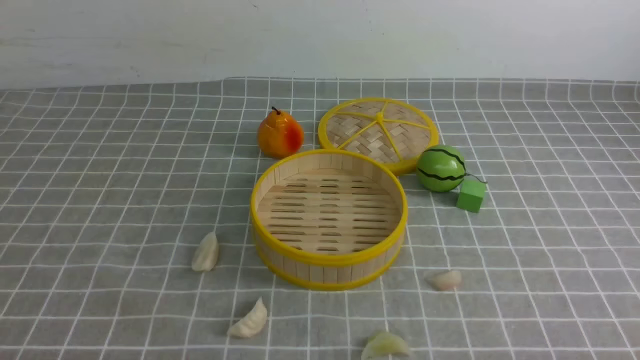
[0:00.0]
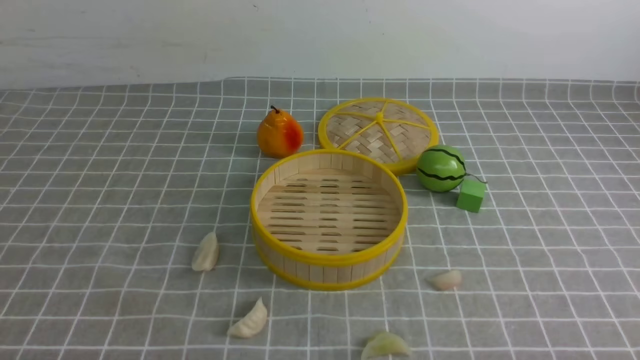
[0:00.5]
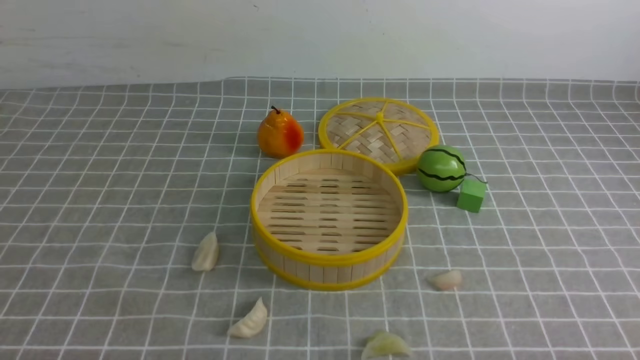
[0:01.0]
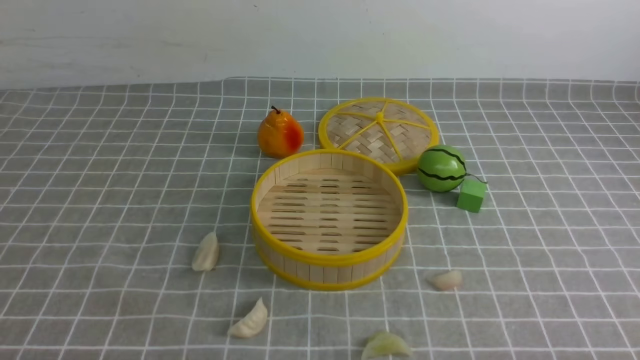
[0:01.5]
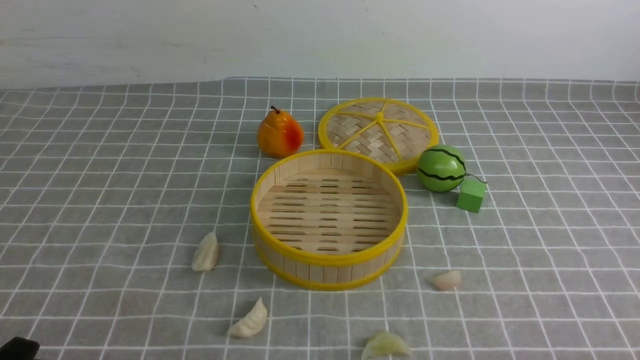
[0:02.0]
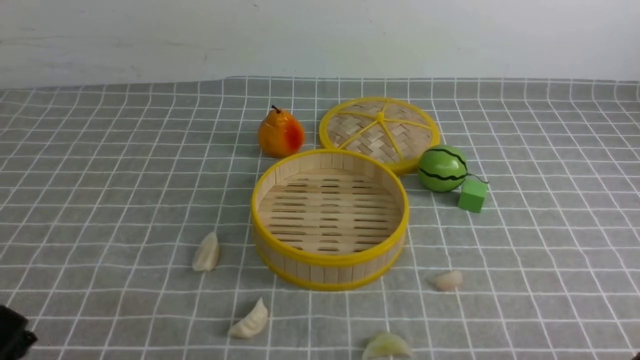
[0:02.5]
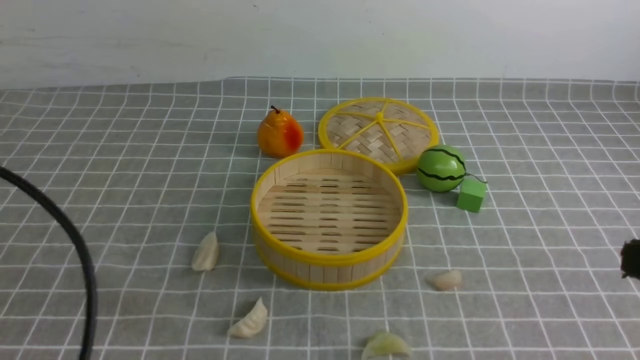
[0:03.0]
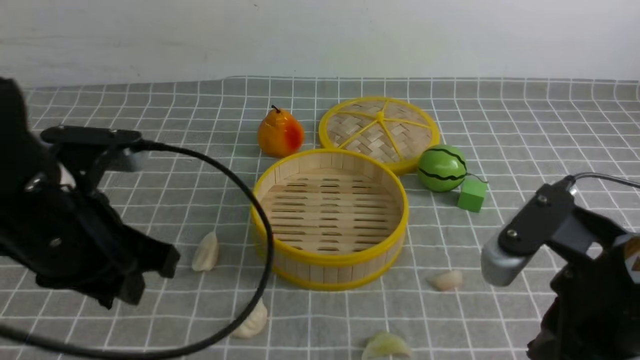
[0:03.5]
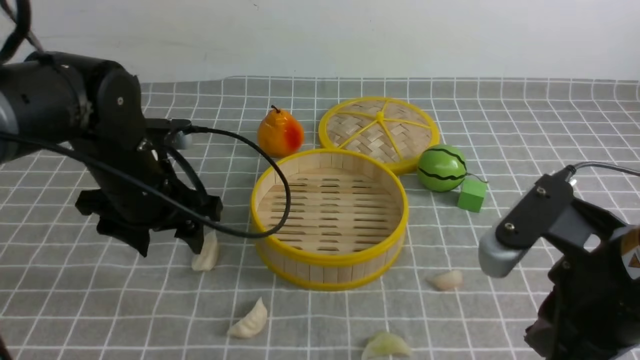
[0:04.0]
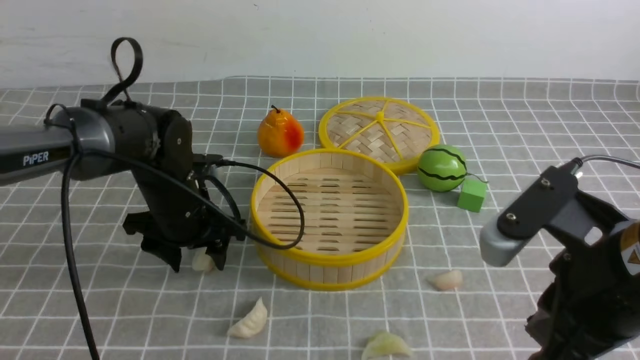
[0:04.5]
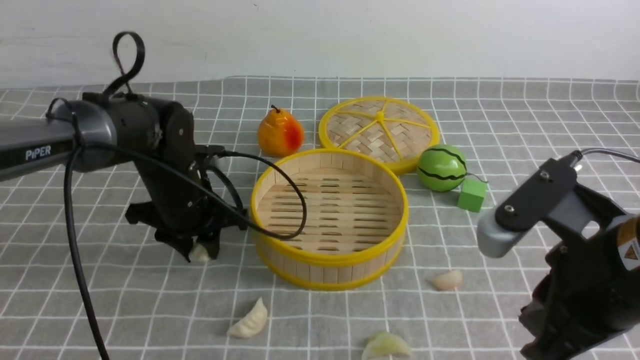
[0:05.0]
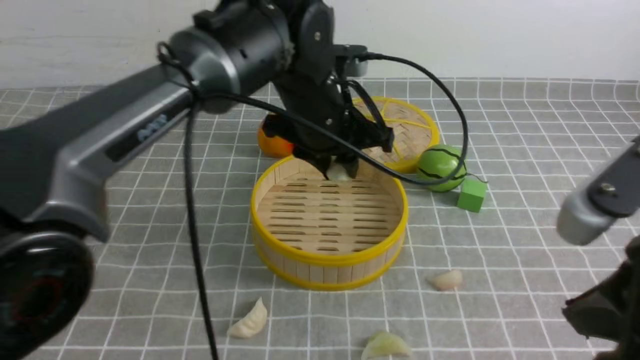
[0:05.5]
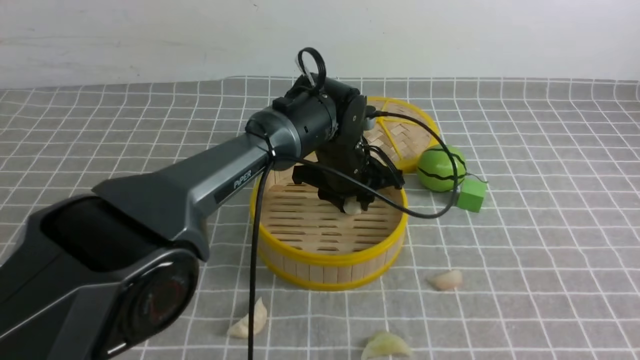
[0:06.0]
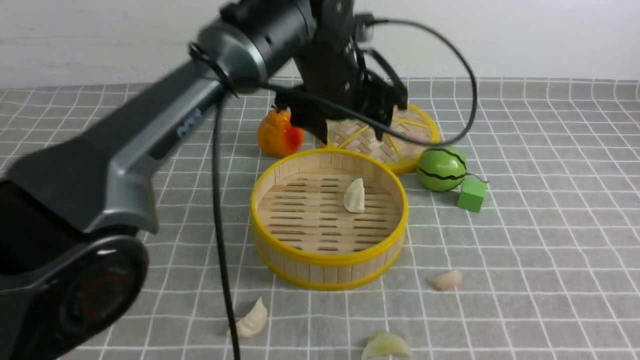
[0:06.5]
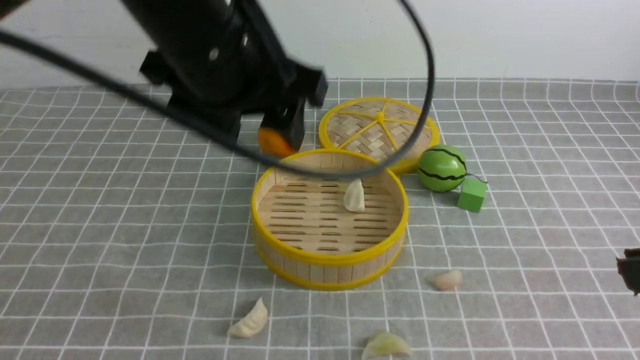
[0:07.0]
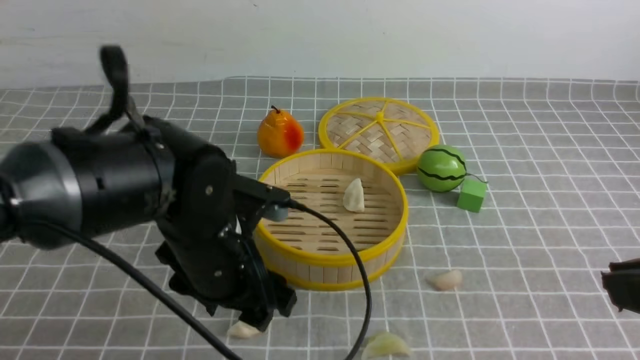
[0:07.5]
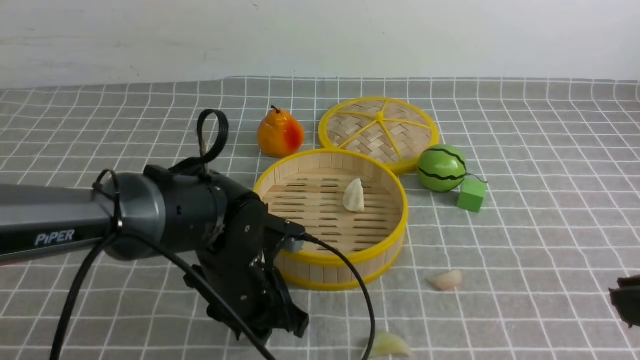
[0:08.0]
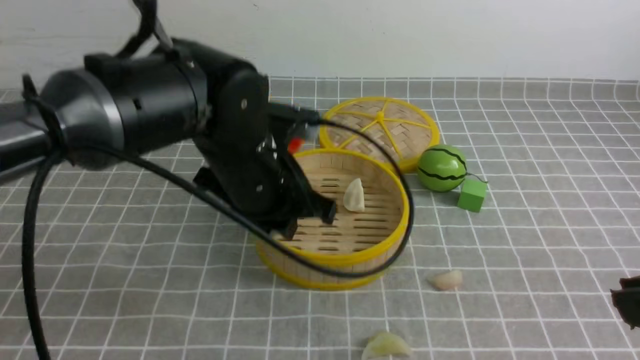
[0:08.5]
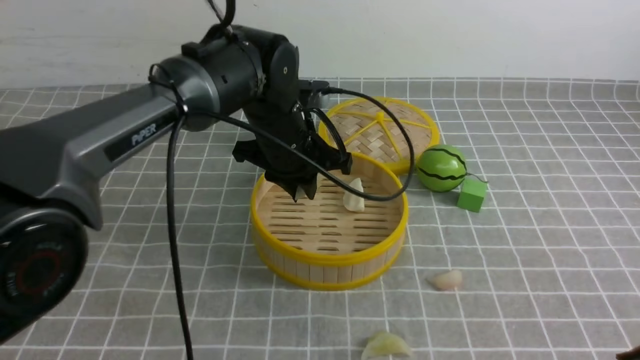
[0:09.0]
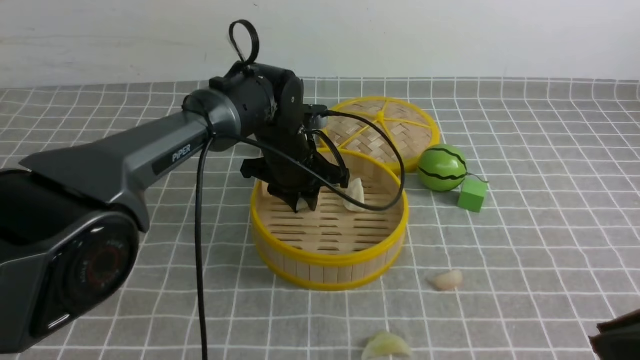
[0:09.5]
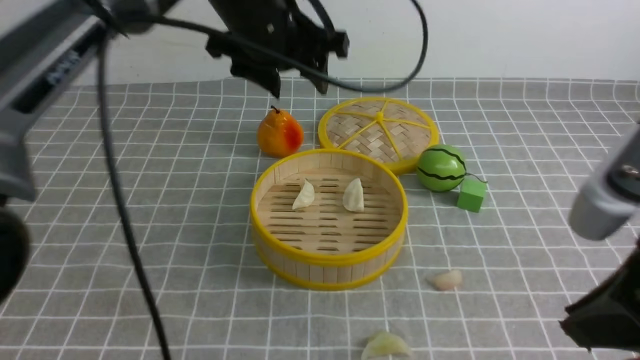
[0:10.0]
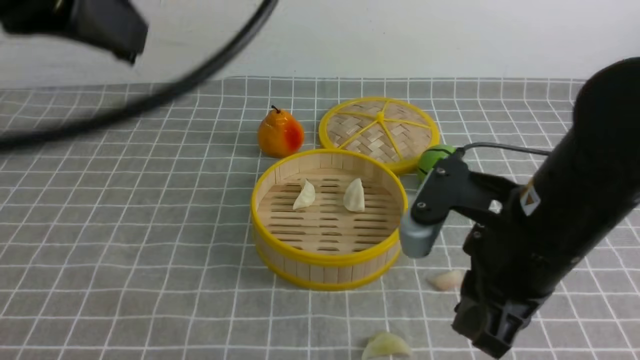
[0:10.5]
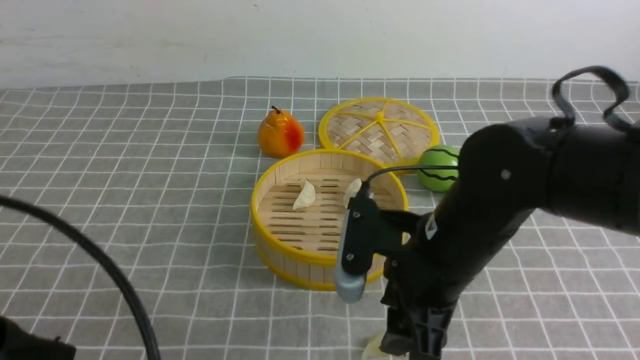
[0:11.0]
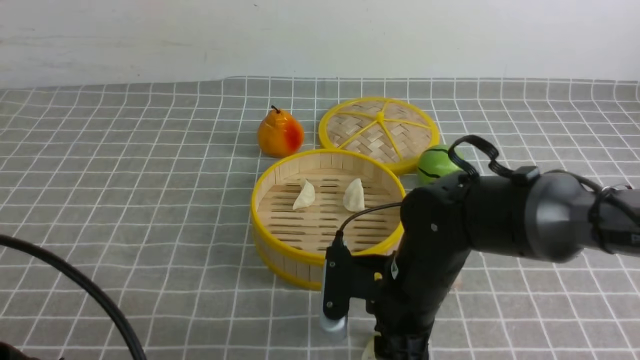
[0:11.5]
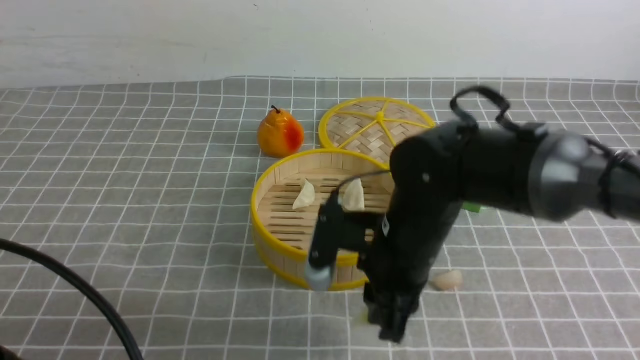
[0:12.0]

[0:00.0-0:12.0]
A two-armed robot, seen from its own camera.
Task of the whole recording: put the dumplings into the steamer on the table with the grey tablecloth.
Step, 0:00.0 to 0:04.5: use the left arm to grab a dumpling.
Step, 0:05.5 to 0:06.0: use the left arm to put the dumpling into the steamer.
Step, 0:06.5 to 0:08.0: use the left arm to grab a dumpling.
Step, 0:08.5 to 0:09.5: use the left arm to put the dumpling into the steamer.
Step, 0:10.0 to 0:11.5: use the right arm to grab a dumpling.
0:02.0 to 0:04.0: The right gripper is displaced forward, upward and to the left by about 20 cm, and closes up. The left gripper is displaced forward by about 30 cm, and opens up.
0:04.0 to 0:06.0: The left gripper moves to the right and forward, roughly 20 cm, and closes up, while the right gripper goes about 10 cm backward, upward and to the right.
0:06.0 to 0:08.0: The left gripper shifts approximately 20 cm backward and to the left, reaches roughly 20 cm upward, then returns, and opens, then closes again.
0:08.0 to 0:10.0: The left gripper swings up and down, some 25 cm each way, with 2 reversals, while the right gripper changes place by some 5 cm.
0:10.0 to 0:12.0: The right gripper travels forward, to the left and downward by roughly 25 cm, and opens, then closes once more. The left gripper is displaced backward and to the left by approximately 35 cm, and closes its fingers.

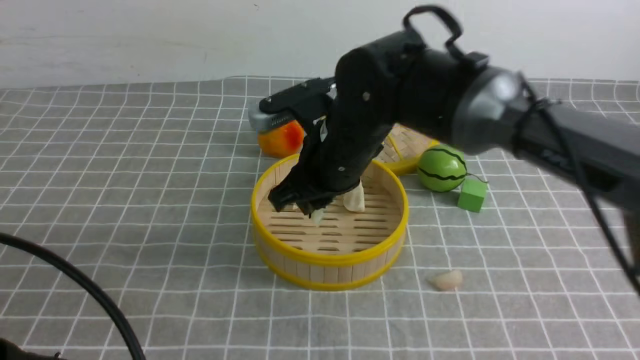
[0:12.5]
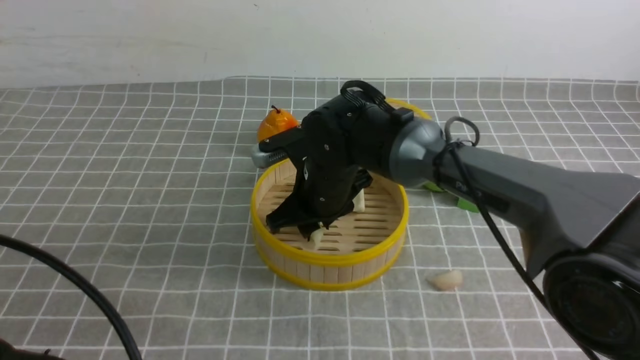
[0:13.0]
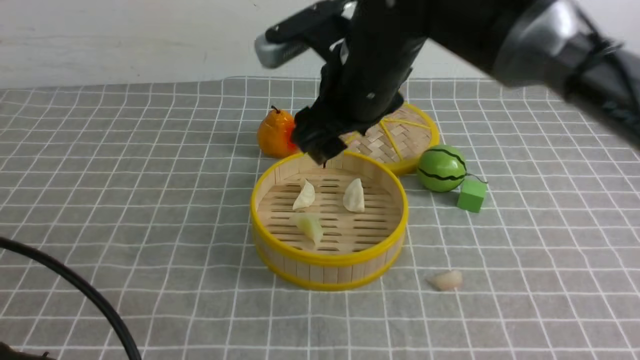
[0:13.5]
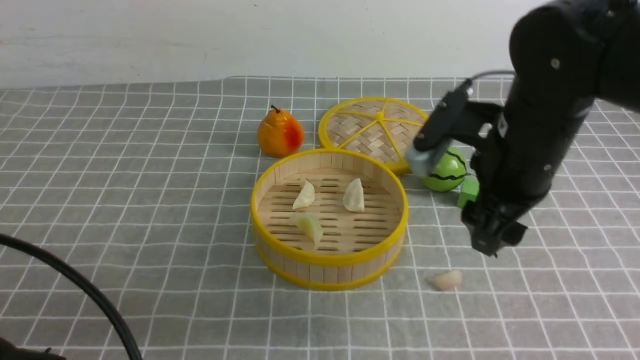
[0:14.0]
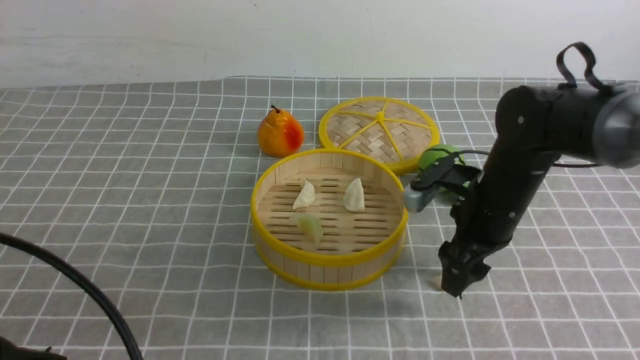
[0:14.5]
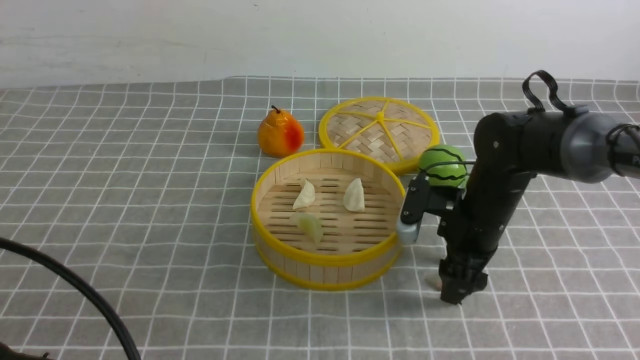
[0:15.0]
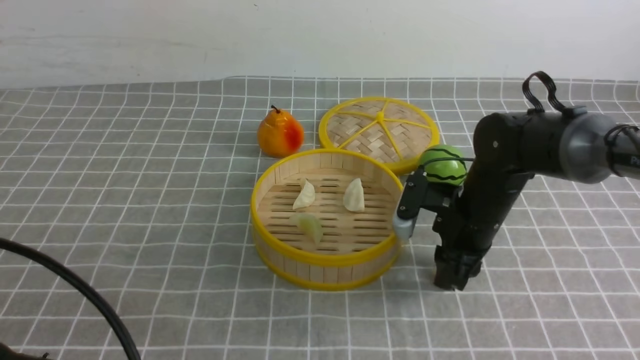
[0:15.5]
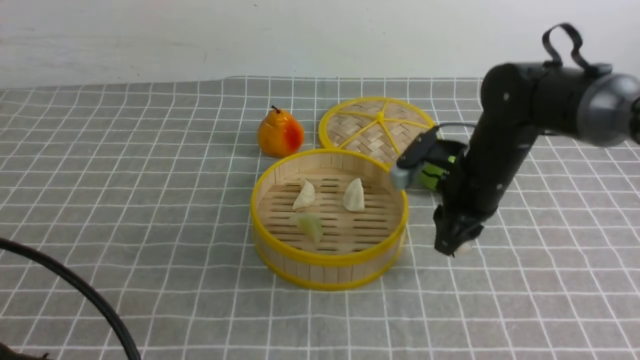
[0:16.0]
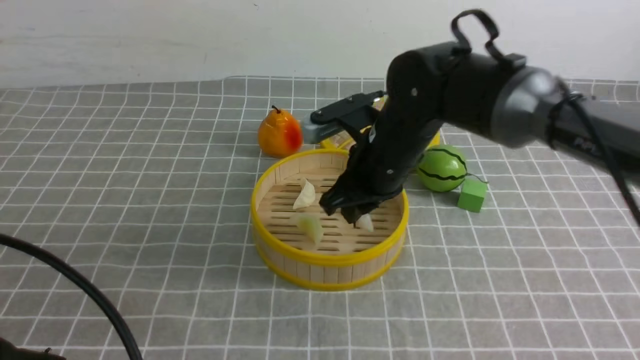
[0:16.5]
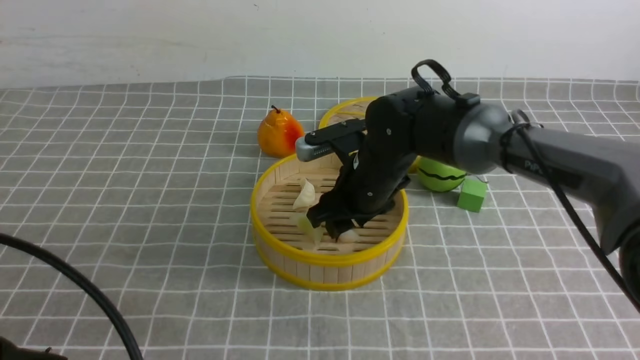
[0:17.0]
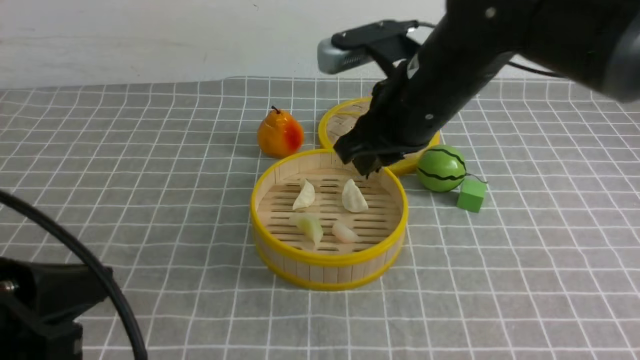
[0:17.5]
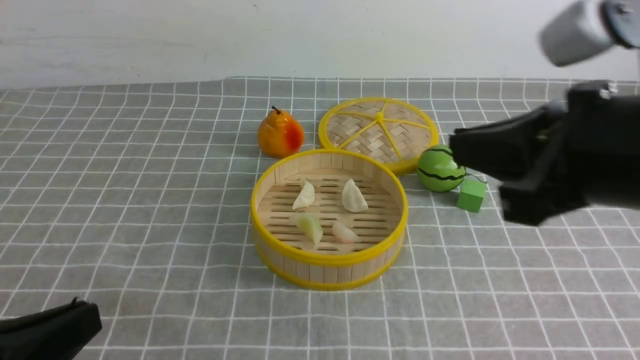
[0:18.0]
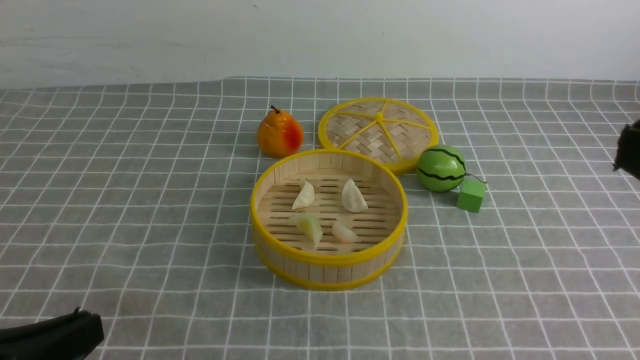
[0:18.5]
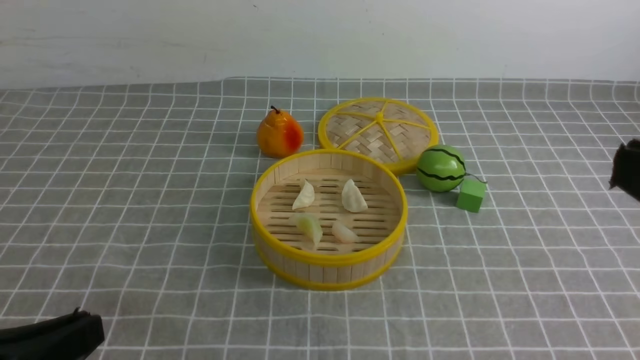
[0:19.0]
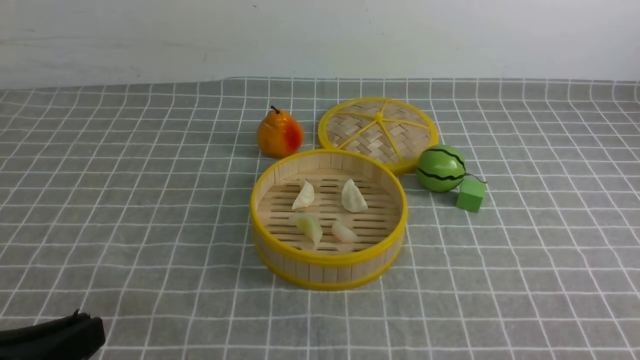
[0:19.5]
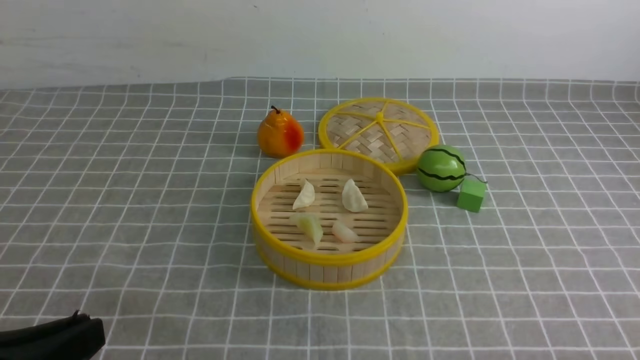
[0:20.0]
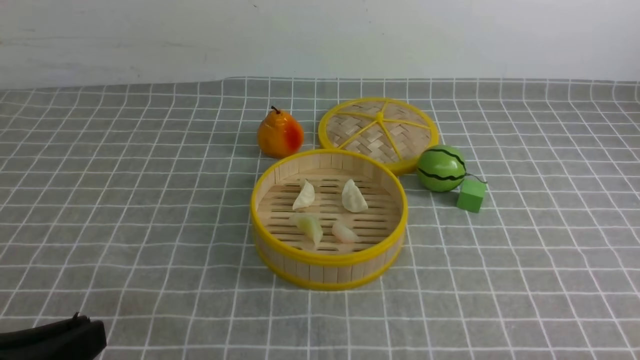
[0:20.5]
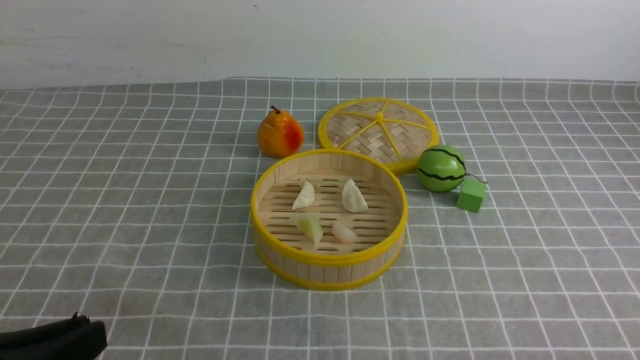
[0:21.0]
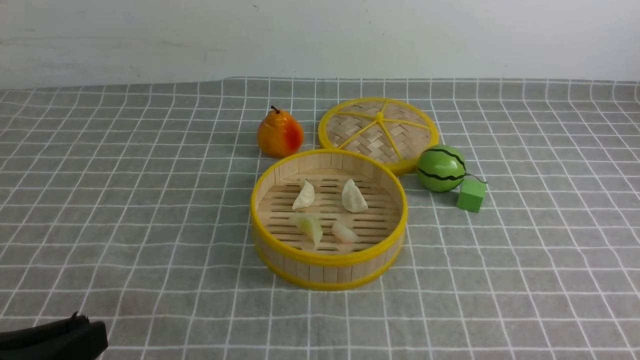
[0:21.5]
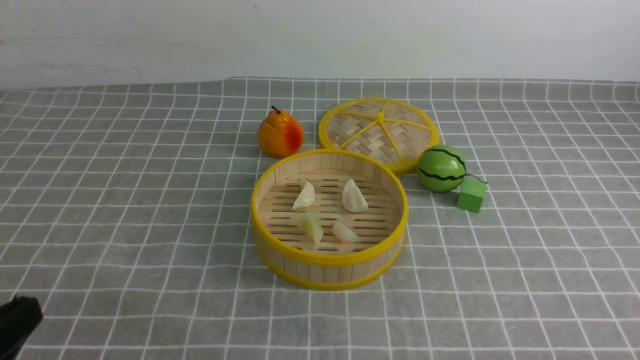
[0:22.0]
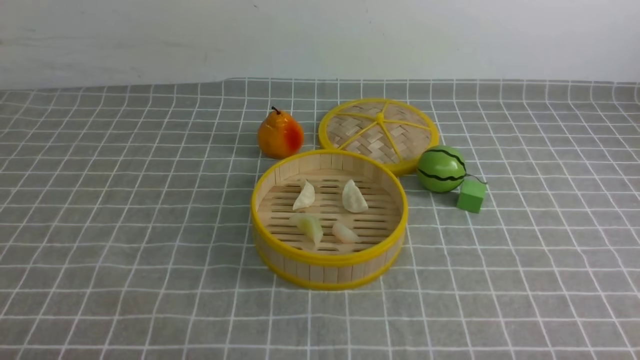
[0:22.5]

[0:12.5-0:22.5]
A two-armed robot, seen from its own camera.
Task of the whole recording: put the dumplings into the steamer on the table with the grey tablecloth.
Step, 0:13.5 to 0:15.5: use the right arm to grab a dumpling.
Step, 0:16.0 to 0:17.0: use the right arm to put the dumpling into the steamer.
0:12.5 to 0:14.5: The right gripper moves to the right, about 15 cm, and opens up.
0:14.5 to 0:16.5: The right gripper shifts roughly 10 cm to the left, and closes its fingers.
0:16.5 to 0:18.5: The right gripper moves backward, to the right and upward, some 35 cm, while the left gripper ends up roughly 5 cm from where it was.
0:20.5 to 0:22.5: The left gripper heads downward, covering about 10 cm.
